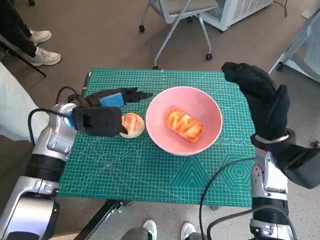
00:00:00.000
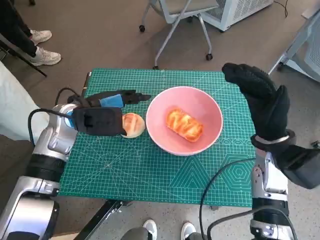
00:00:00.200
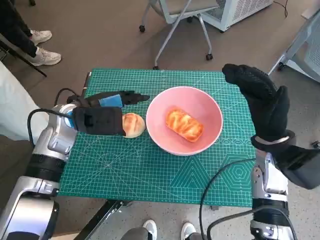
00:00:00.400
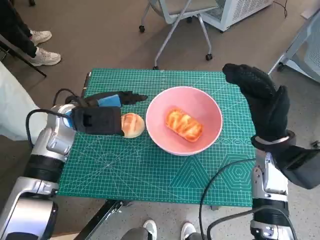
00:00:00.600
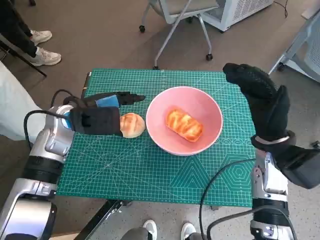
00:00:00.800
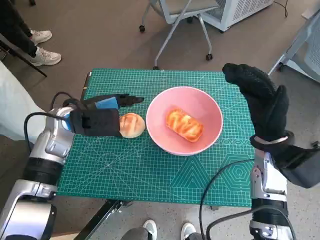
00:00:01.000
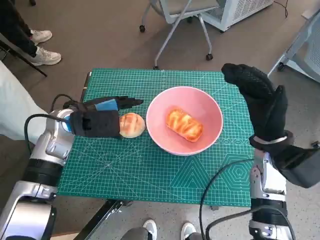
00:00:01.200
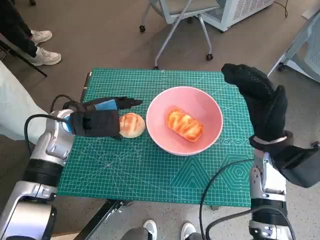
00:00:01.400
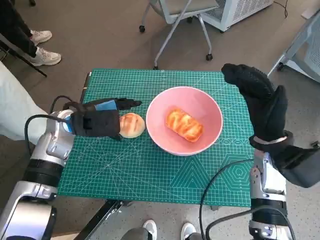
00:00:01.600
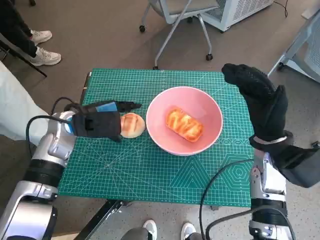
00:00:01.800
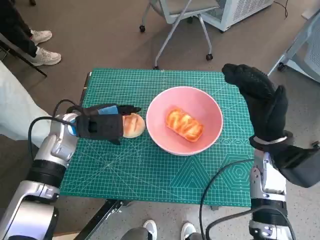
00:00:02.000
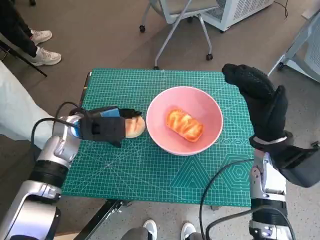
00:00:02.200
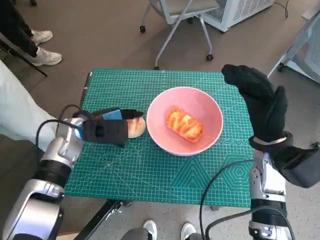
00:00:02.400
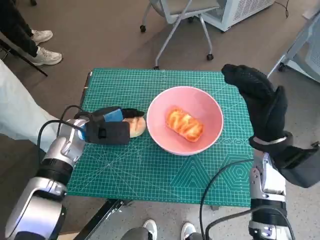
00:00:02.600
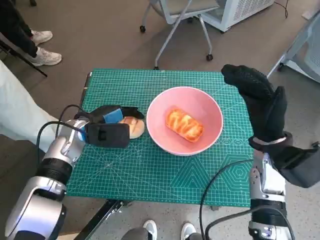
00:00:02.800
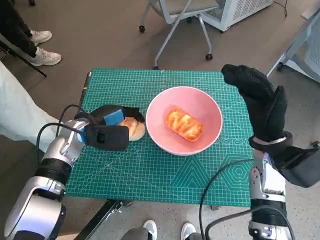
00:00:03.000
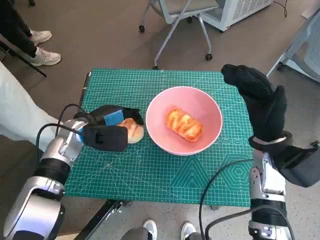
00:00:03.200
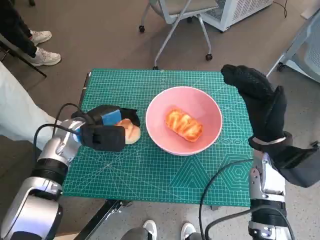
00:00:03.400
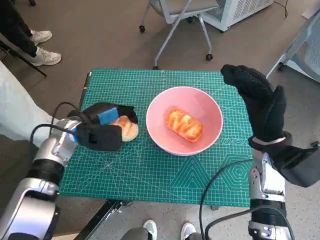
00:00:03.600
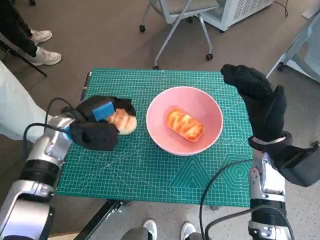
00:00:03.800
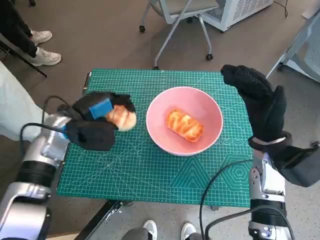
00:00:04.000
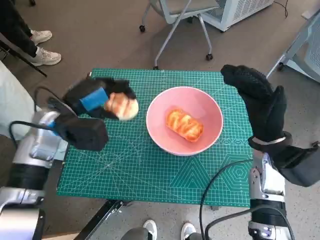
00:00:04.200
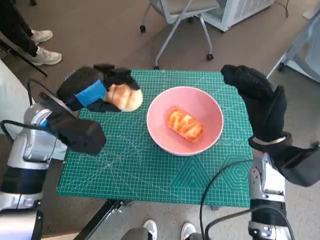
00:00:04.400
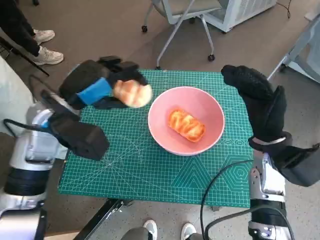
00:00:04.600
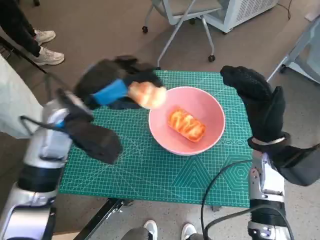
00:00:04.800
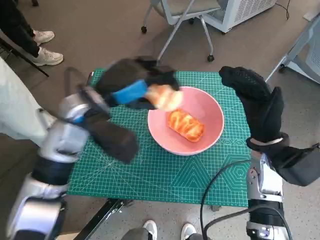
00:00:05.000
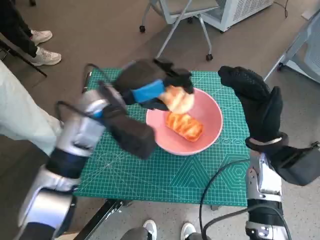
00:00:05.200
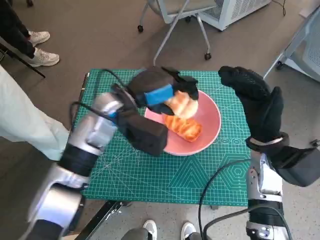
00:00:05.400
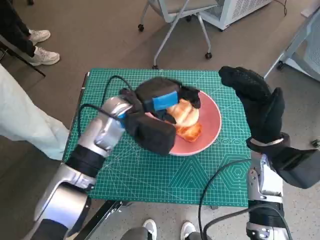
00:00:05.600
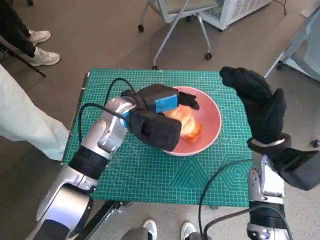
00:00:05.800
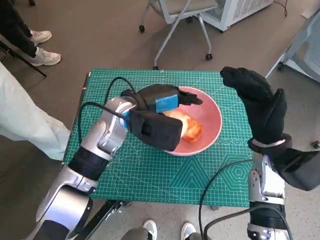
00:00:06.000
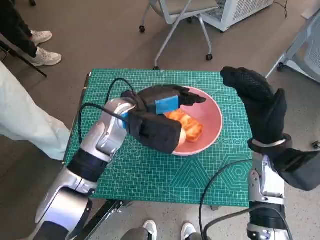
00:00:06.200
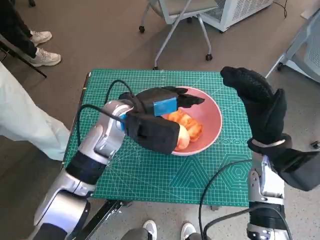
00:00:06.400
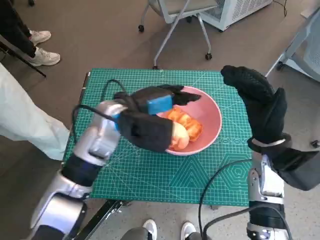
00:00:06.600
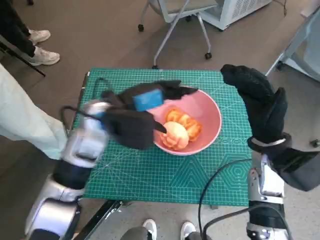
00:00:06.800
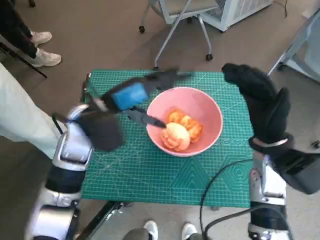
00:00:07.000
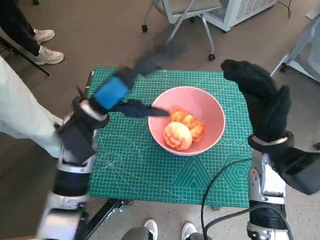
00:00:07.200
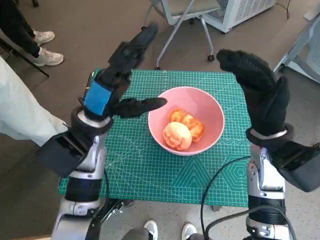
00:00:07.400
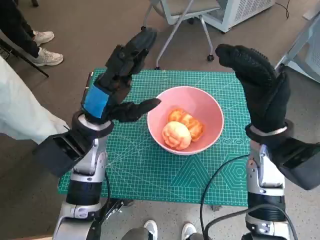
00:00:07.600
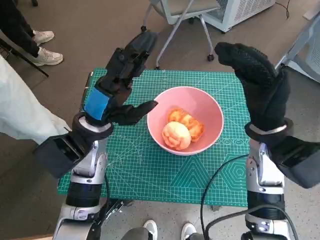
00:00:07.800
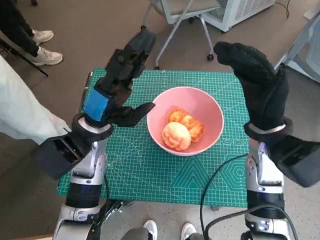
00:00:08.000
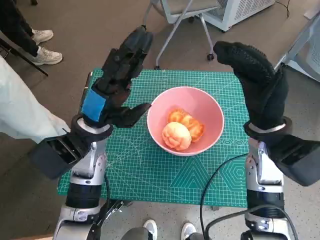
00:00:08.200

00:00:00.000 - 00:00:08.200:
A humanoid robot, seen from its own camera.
Task of the whole recording: Push the bowl into the center of the table and put the bread into the bowl.
Step, 00:00:00.000 - 00:00:03.200: Grasp the round bread with left hand.
Step, 00:00:03.400 - 00:00:06.000: Place the round bread in pink bowl with left hand.
00:00:00.000 - 00:00:01.600: There are only small adjustments of the hands.
00:00:01.600 - 00:00:03.200: The hands move only a little.
00:00:03.200 - 00:00:05.000: The left hand heads upward and to the right, covering approximately 10 cm.
00:00:05.000 - 00:00:06.600: The left hand heads to the right, covering some 5 cm.
00:00:06.600 - 00:00:08.200: The left hand heads to the left, covering some 5 cm.

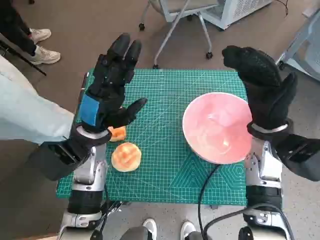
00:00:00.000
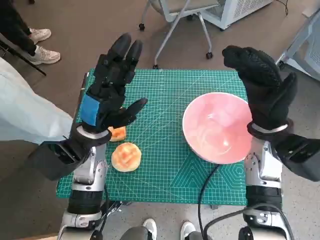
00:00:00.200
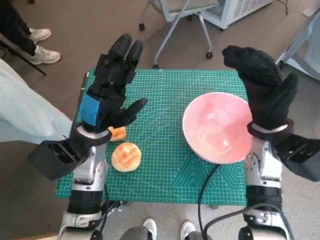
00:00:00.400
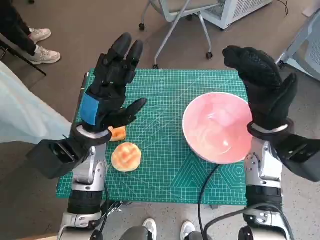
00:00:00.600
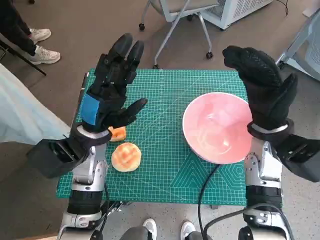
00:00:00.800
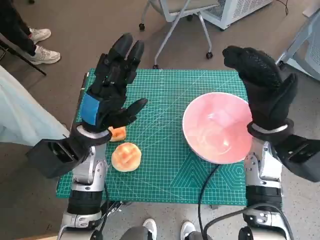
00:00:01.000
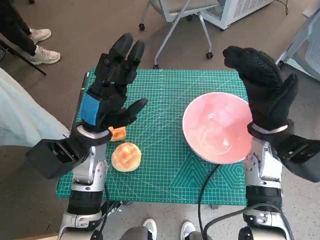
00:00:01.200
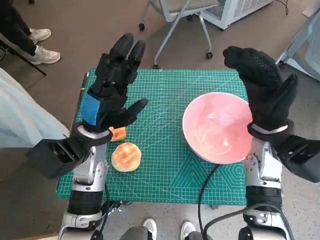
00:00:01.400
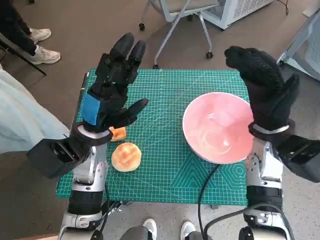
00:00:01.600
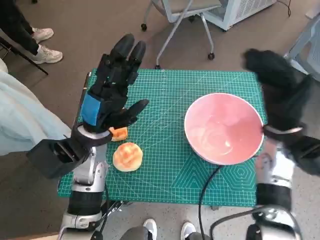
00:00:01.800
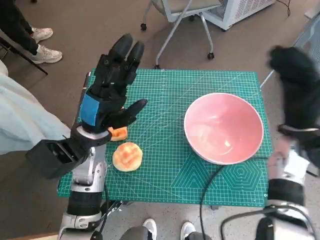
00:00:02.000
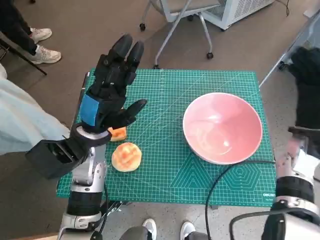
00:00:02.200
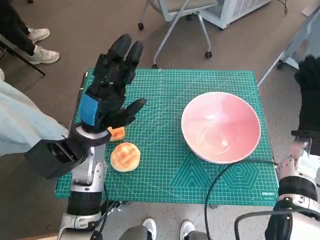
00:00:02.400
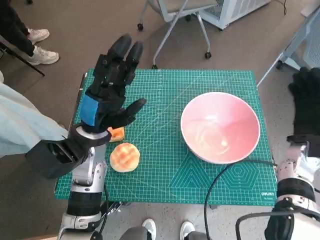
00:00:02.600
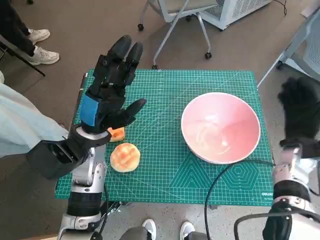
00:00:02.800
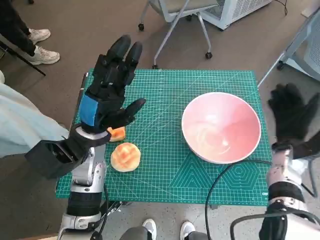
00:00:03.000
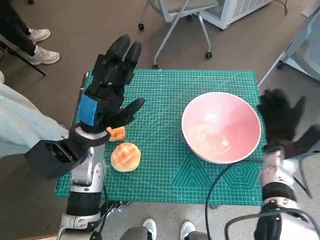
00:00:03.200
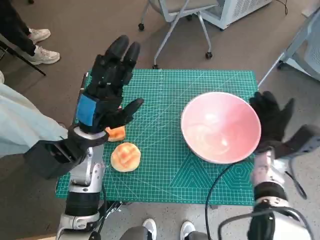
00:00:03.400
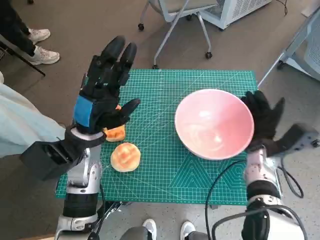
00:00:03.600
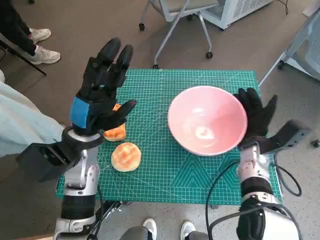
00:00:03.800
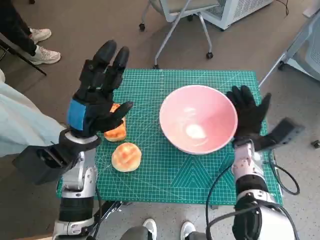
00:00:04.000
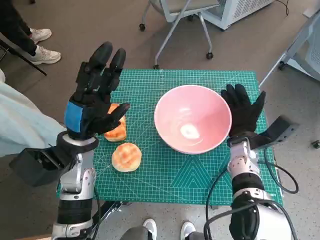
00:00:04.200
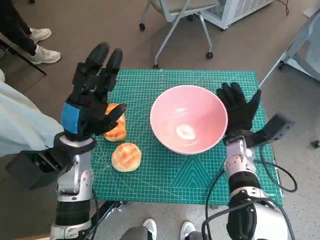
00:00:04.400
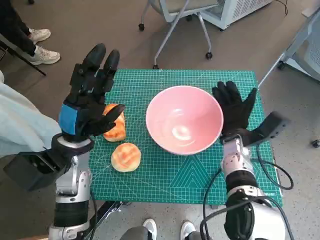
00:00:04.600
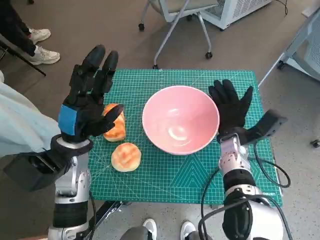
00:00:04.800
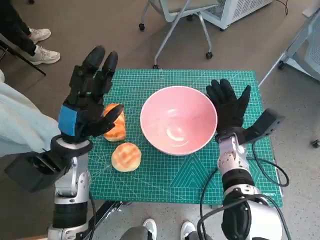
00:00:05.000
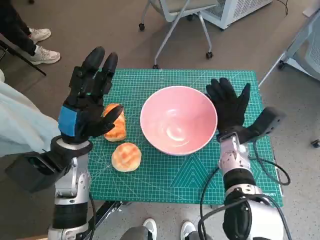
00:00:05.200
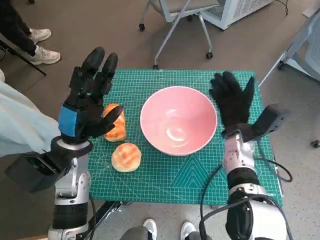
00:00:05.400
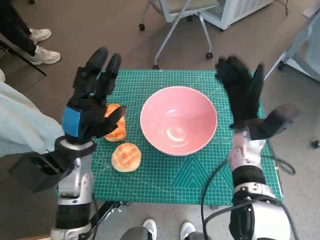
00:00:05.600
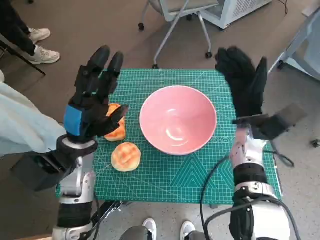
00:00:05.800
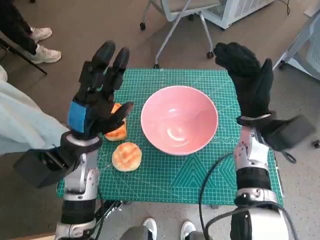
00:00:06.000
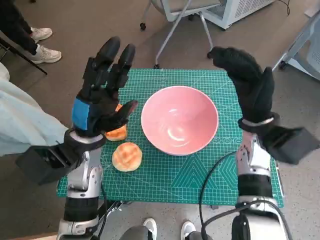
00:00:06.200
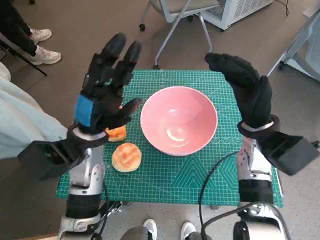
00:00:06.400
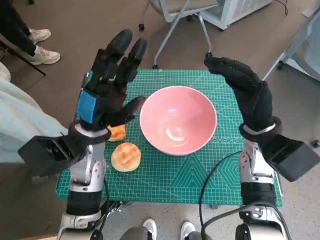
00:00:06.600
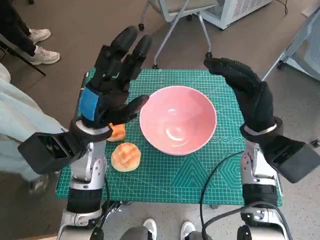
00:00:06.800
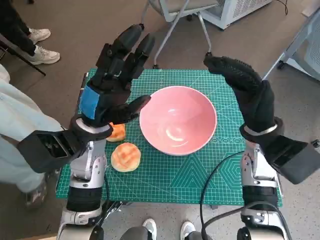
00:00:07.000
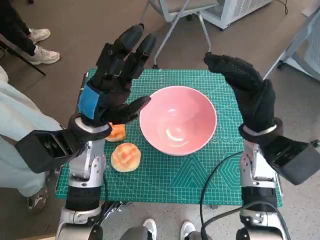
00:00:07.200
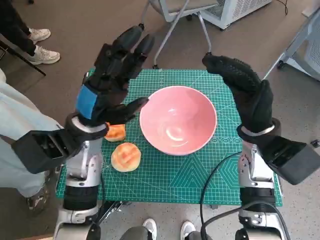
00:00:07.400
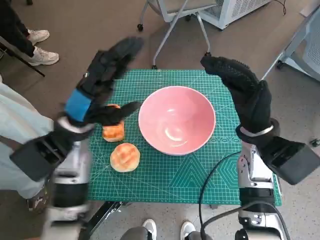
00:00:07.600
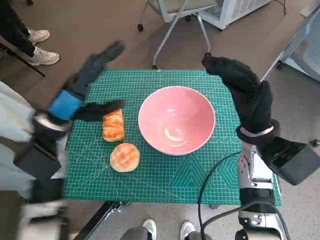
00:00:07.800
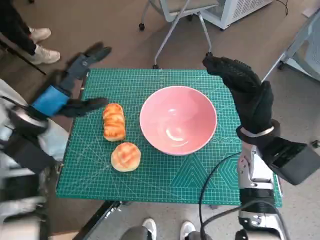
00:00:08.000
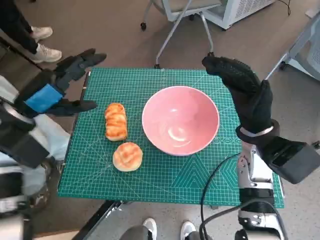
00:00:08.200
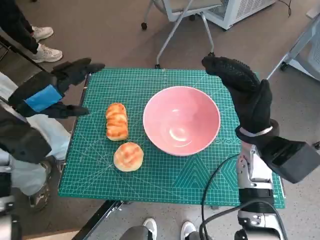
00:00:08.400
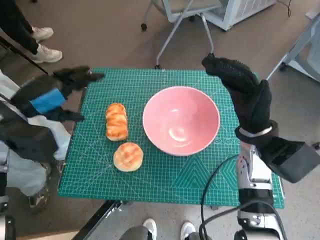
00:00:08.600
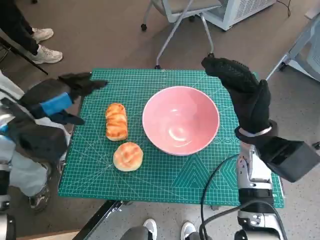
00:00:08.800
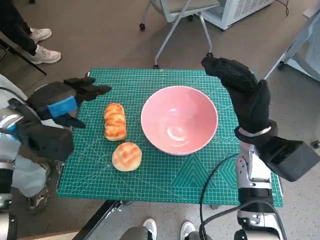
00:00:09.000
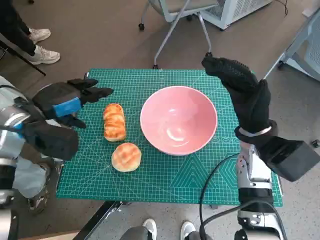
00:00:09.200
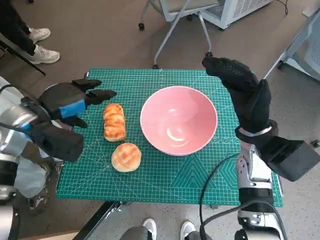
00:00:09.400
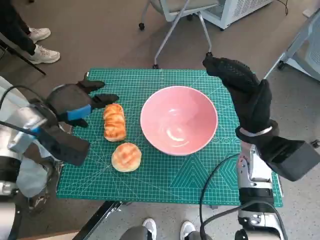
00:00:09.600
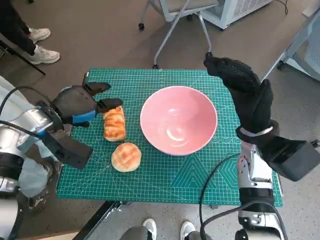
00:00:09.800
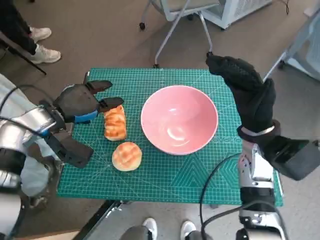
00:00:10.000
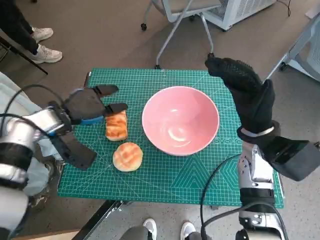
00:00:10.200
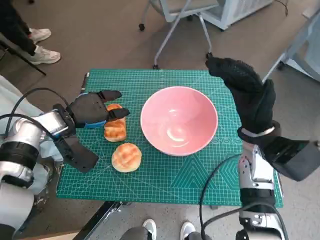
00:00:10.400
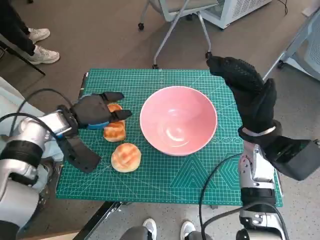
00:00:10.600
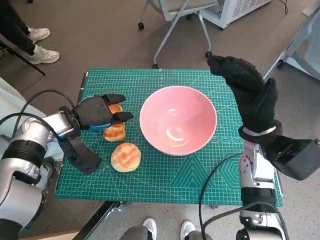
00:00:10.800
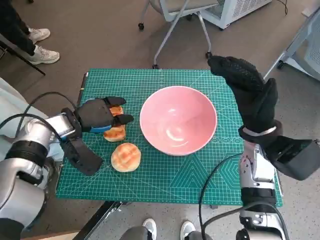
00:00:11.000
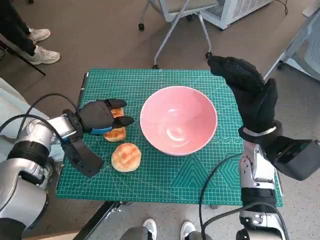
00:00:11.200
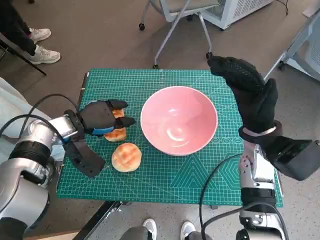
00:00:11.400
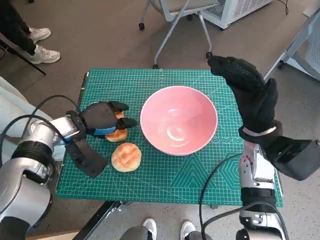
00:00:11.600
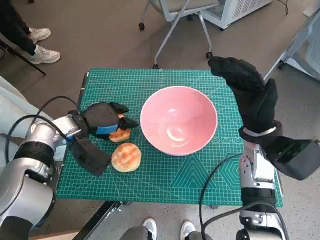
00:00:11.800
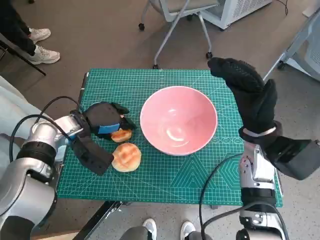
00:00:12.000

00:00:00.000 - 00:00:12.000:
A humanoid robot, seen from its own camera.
Task of the whole recording: Push the bowl into the center of the table and put the bread into the bowl.
Step, 00:00:00.000 - 00:00:05.600: Move the pink bowl to the center of table with right hand.
Step, 00:00:05.800 - 00:00:11.800: Grasp the long bread with left hand.
00:00:01.600 - 00:00:03.000: The right hand moves downward and to the right, about 10 cm.
00:00:03.000 - 00:00:04.400: The right hand goes about 10 cm to the left.
00:00:04.400 - 00:00:06.000: The right hand travels upward by roughly 10 cm.
00:00:07.600 - 00:00:09.000: The left hand heads to the left, covering some 10 cm.
00:00:09.000 - 00:00:10.400: The left hand goes some 5 cm downward.
00:00:10.400 - 00:00:12.000: The hands make only small movements.

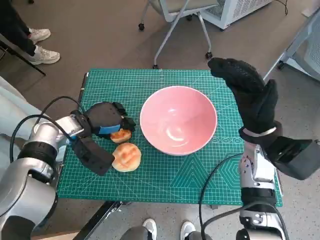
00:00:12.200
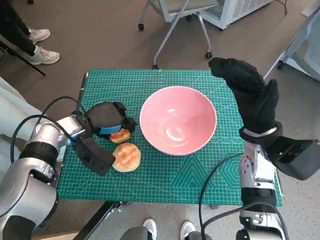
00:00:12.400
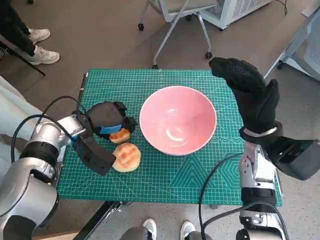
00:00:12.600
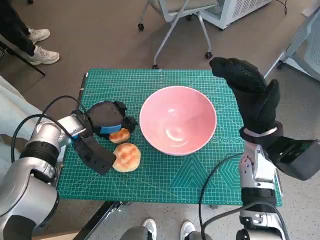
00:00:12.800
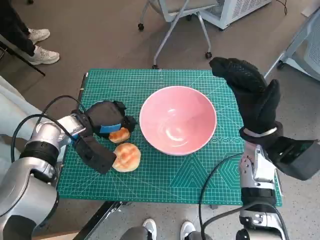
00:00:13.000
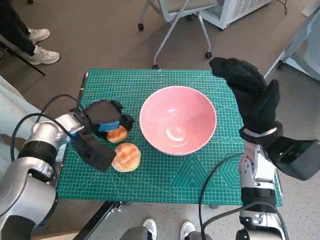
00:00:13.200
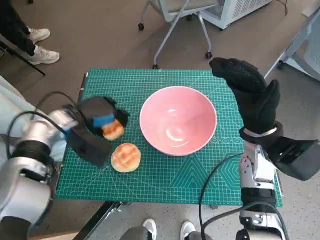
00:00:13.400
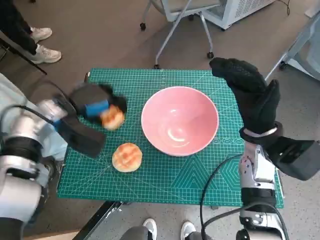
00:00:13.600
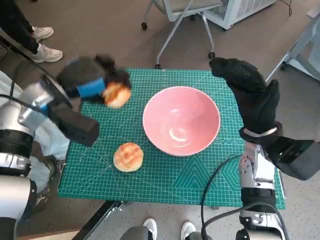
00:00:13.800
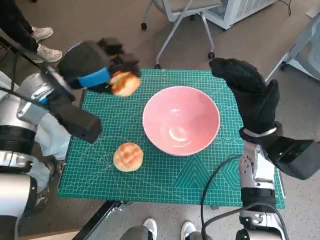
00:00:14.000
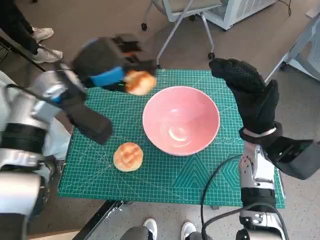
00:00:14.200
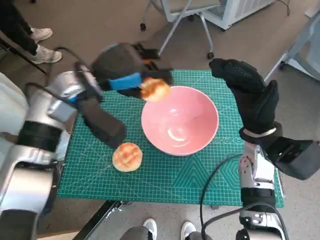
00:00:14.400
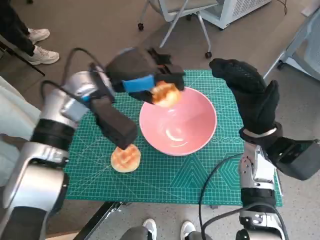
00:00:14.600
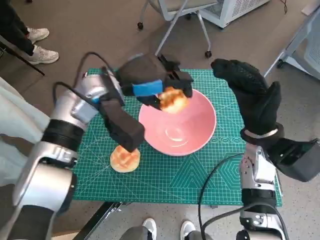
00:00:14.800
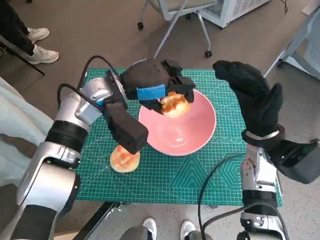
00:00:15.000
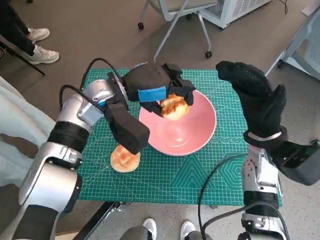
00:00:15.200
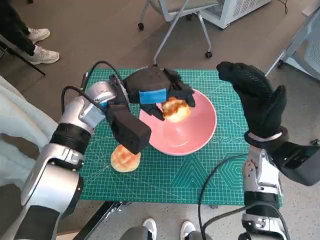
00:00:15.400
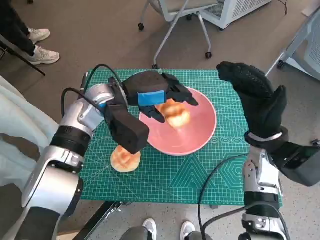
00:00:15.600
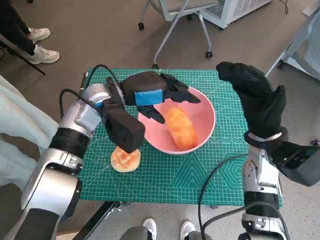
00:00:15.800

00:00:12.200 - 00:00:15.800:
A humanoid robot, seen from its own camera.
Task of the whole recording: Push the bowl into the center of the table and put the bread into the bowl.
00:00:12.200 - 00:00:14.000: The left hand travels upward by approximately 10 cm.
00:00:14.000 - 00:00:15.800: The left hand is displaced to the right by some 10 cm.
